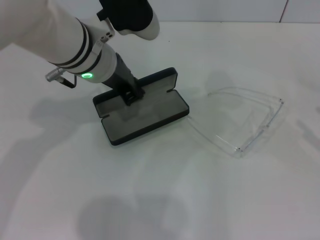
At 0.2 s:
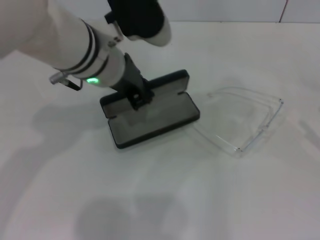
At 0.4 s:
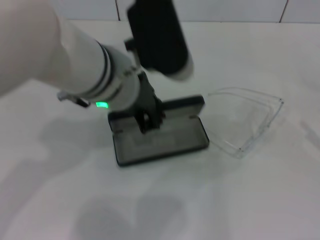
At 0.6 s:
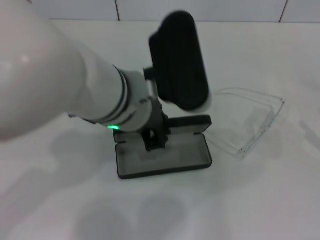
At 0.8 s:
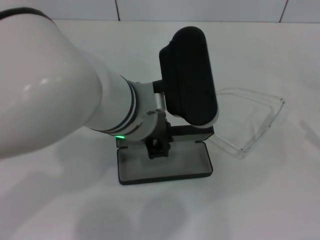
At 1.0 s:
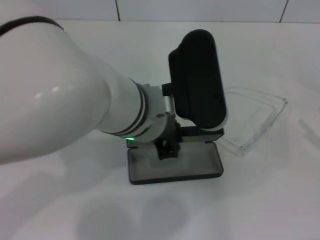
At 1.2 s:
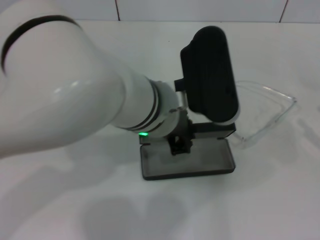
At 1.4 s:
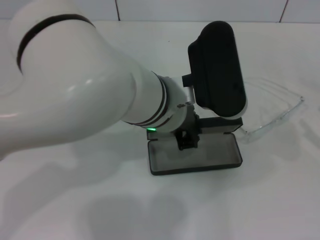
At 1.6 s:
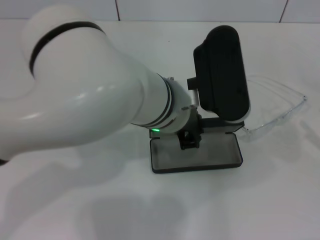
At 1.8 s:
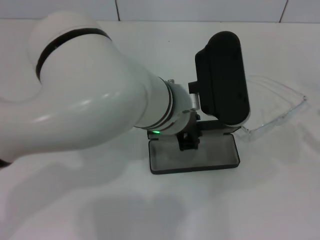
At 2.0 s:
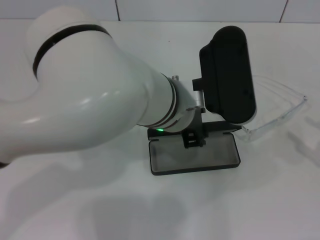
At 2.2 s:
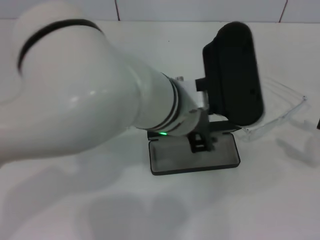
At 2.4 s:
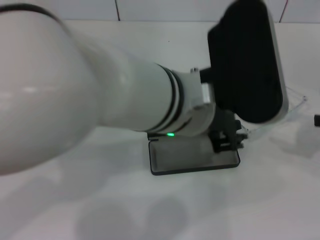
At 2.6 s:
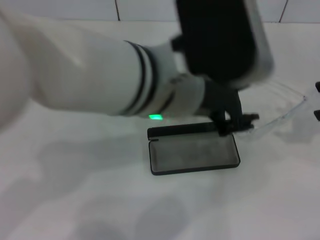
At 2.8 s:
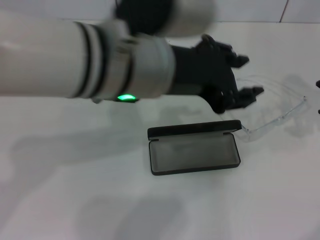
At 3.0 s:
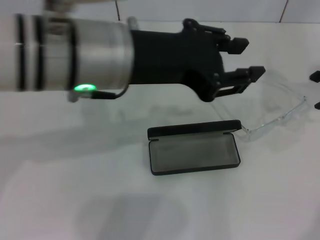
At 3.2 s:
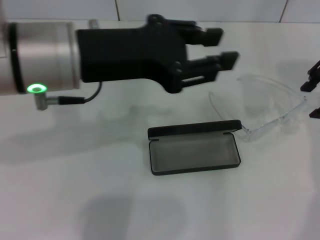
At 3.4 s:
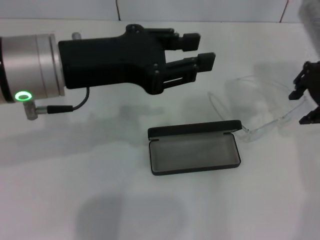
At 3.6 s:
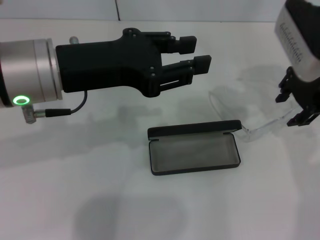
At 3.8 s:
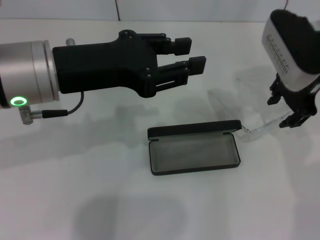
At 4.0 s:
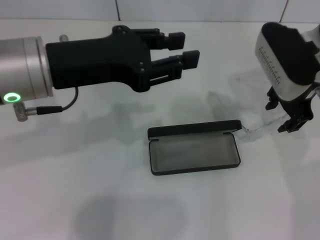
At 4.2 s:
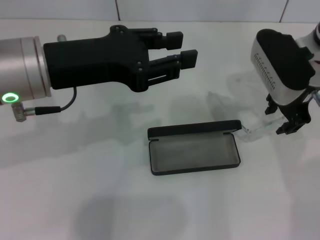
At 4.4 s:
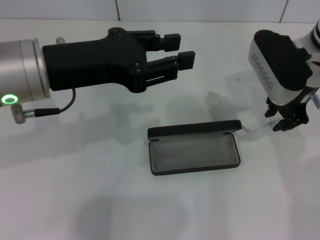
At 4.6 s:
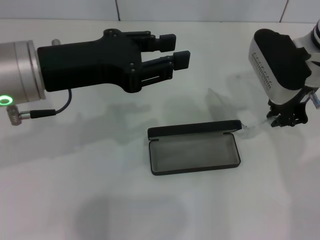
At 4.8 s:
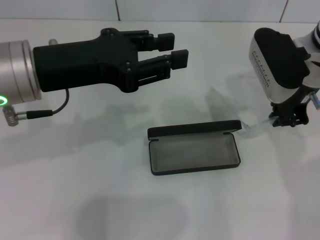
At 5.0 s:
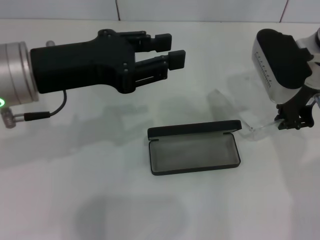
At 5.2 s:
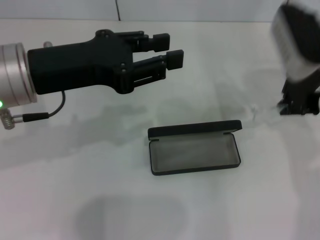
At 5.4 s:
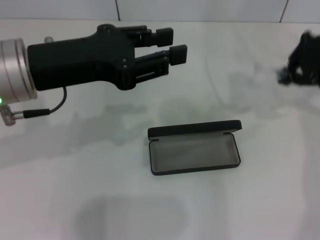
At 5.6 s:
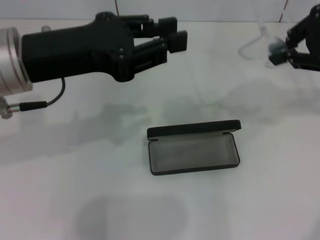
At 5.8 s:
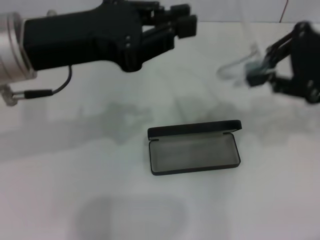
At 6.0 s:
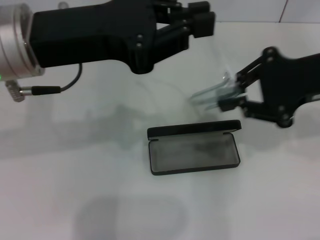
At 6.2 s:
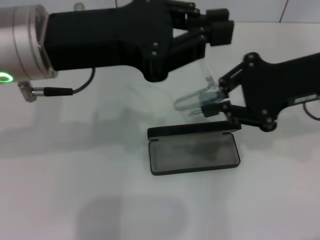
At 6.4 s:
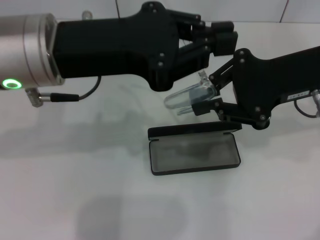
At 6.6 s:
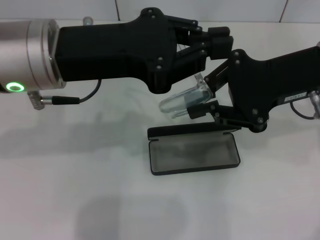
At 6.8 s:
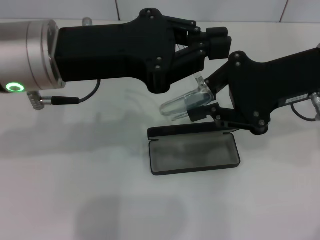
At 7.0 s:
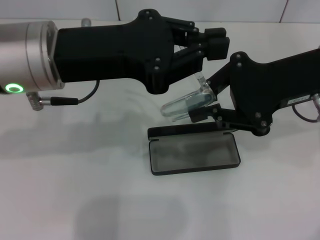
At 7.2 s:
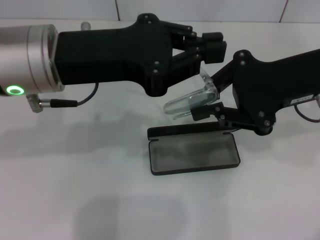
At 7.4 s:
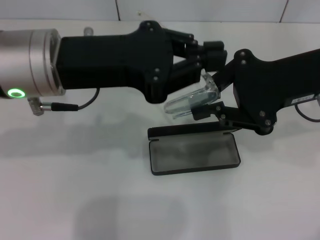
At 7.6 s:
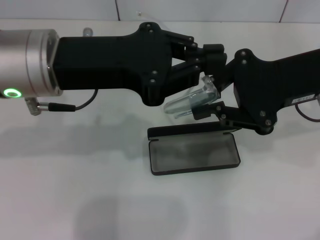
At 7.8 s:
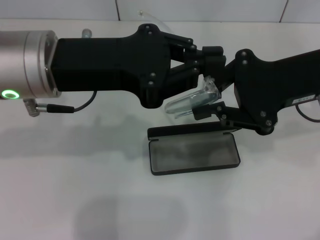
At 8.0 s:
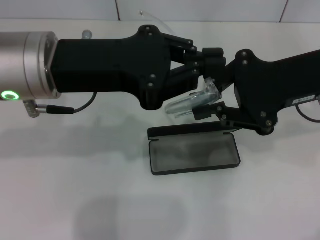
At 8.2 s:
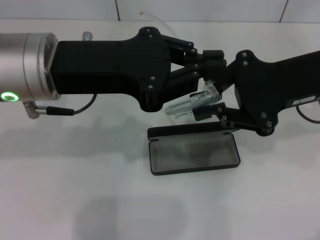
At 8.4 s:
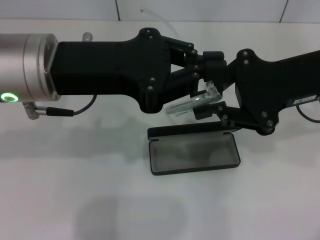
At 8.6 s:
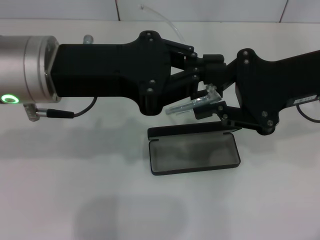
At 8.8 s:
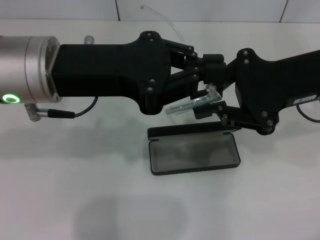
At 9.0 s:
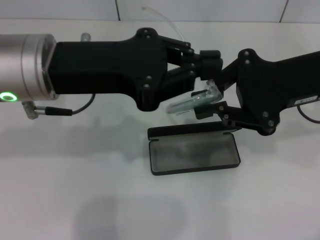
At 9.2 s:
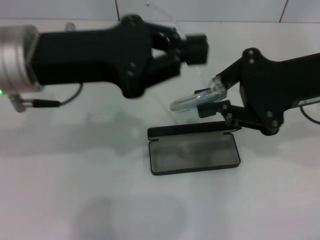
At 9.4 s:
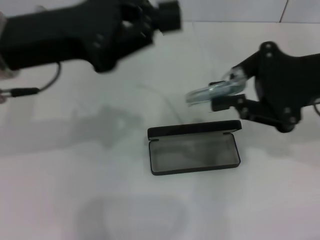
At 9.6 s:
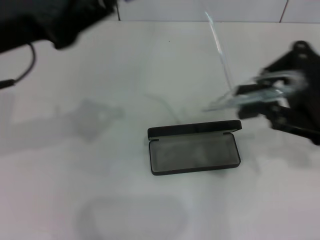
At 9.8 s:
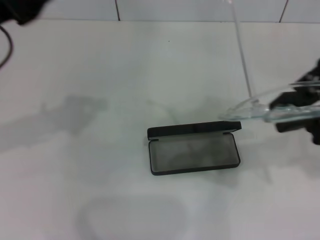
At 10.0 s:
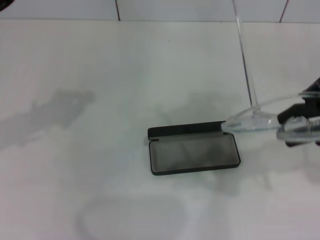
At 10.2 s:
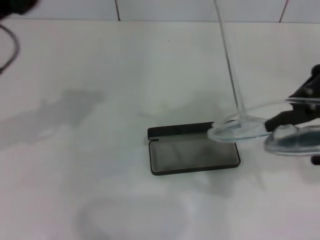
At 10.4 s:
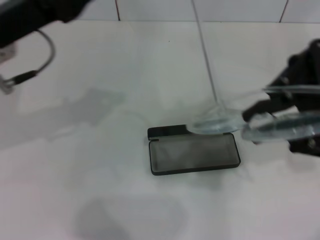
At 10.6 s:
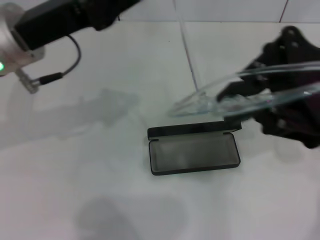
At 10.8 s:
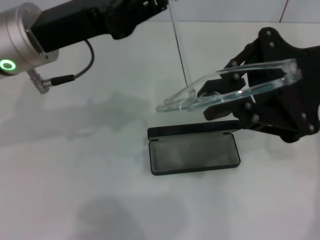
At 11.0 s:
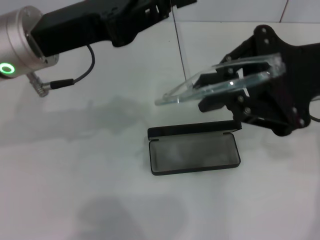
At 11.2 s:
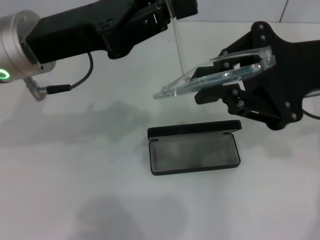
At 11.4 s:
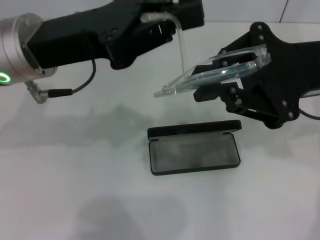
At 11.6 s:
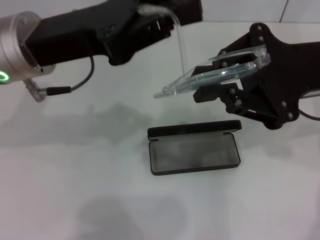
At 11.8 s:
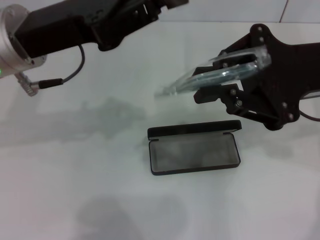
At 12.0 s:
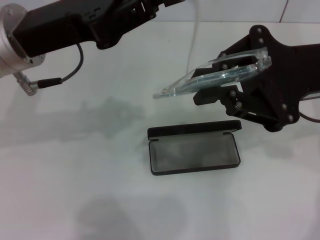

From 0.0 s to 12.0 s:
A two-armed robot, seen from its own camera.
Step, from 0.0 s to 1.8 s: Place the glasses case in the center of the table with your left hand.
Step, from 2.0 s to 4.8 s: Grab the eyeglass frame with your right hand.
From 0.0 s to 1.6 s: The left gripper goes roughly 10 cm to the right and backward.
From 1.6 s to 3.0 s: The left gripper travels upward and to the left by roughly 10 cm; the right gripper goes roughly 25 cm forward, upward and to the left.
From 3.0 s to 4.4 s: The right gripper moves to the left and downward, about 15 cm. The left gripper is displaced to the left by about 10 cm.
From 4.4 s to 6.0 s: The right gripper is displaced backward, to the right and upward by some 10 cm, and closes; the left gripper closes.
From 7.6 s to 9.0 s: Neither gripper changes place.
From 9.0 s to 10.4 s: The left gripper moves to the left, about 5 cm.

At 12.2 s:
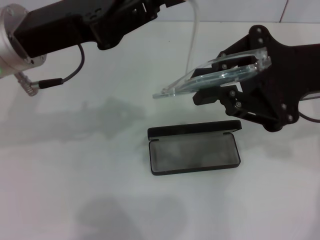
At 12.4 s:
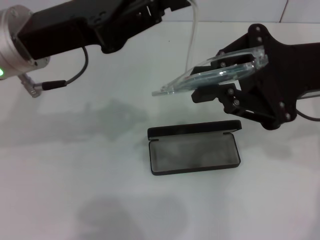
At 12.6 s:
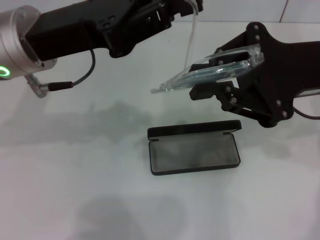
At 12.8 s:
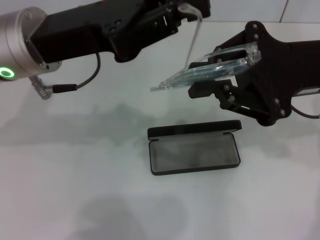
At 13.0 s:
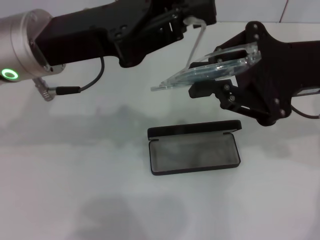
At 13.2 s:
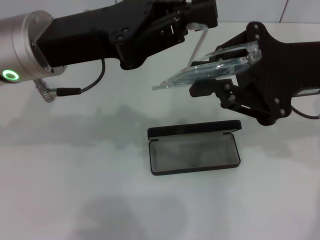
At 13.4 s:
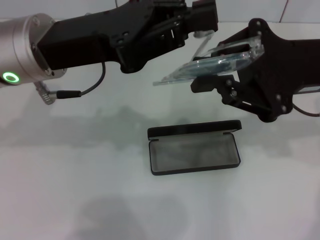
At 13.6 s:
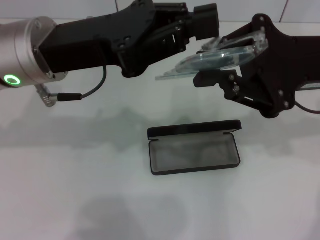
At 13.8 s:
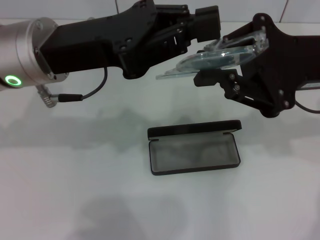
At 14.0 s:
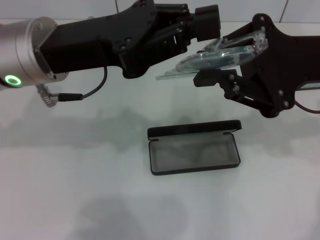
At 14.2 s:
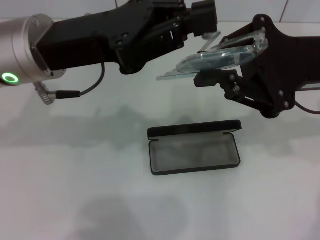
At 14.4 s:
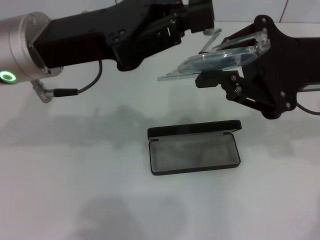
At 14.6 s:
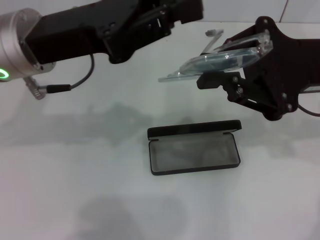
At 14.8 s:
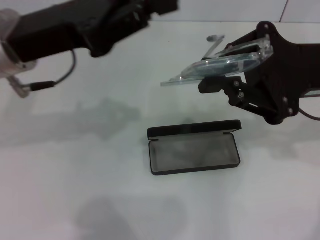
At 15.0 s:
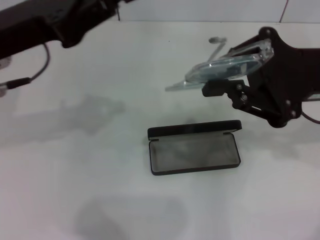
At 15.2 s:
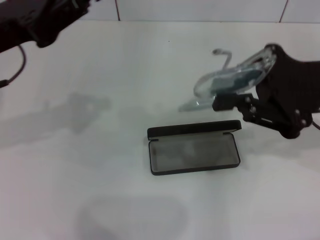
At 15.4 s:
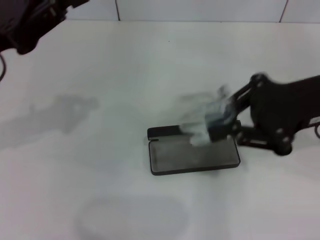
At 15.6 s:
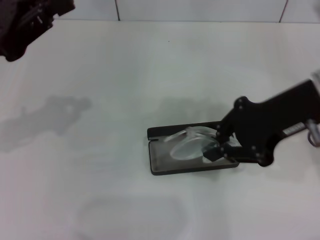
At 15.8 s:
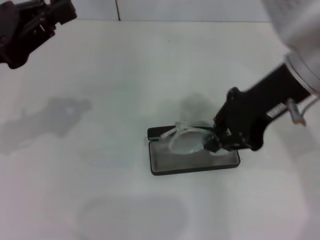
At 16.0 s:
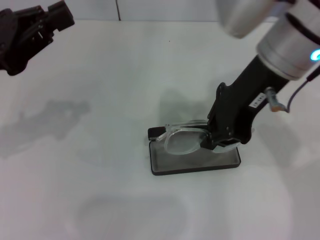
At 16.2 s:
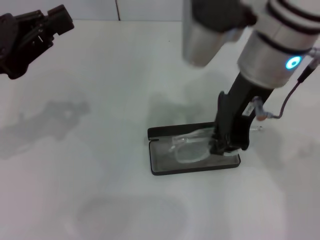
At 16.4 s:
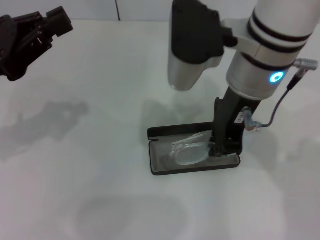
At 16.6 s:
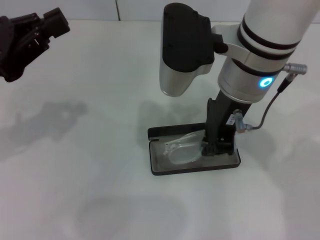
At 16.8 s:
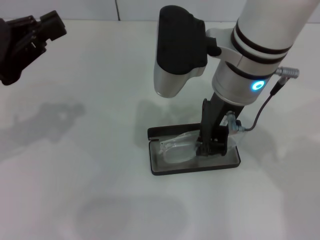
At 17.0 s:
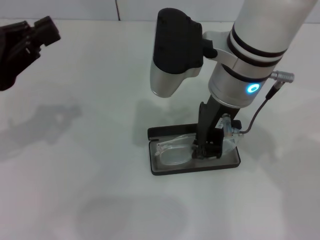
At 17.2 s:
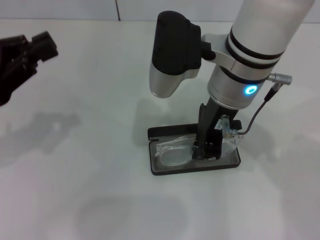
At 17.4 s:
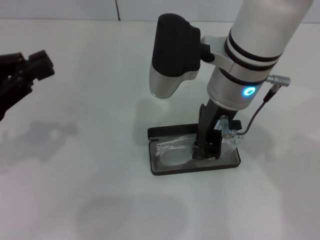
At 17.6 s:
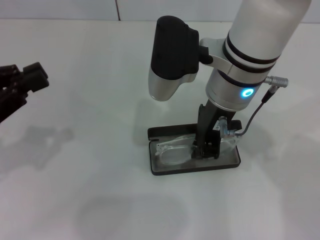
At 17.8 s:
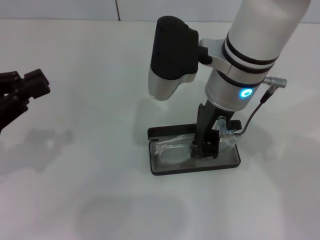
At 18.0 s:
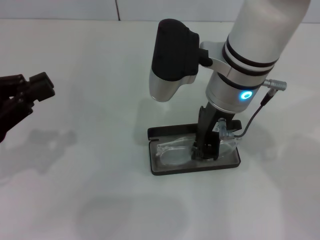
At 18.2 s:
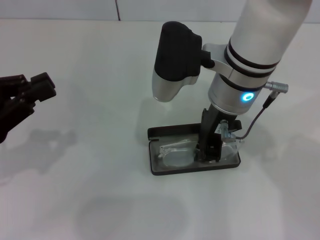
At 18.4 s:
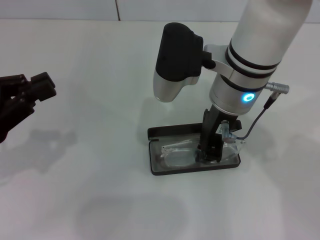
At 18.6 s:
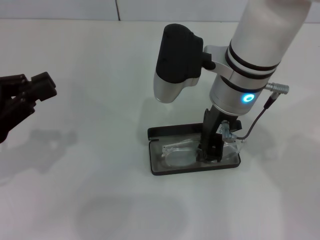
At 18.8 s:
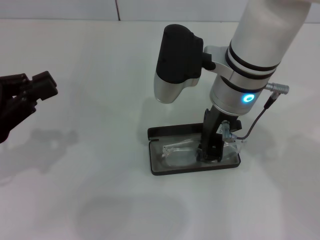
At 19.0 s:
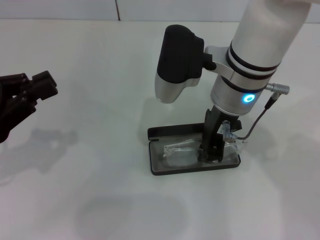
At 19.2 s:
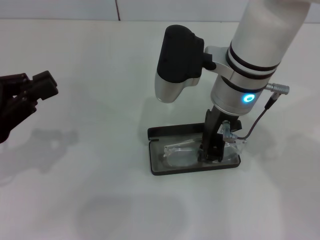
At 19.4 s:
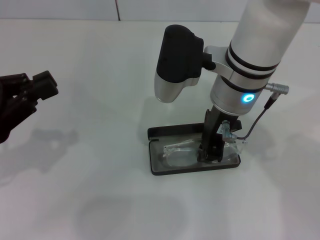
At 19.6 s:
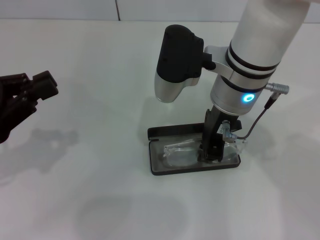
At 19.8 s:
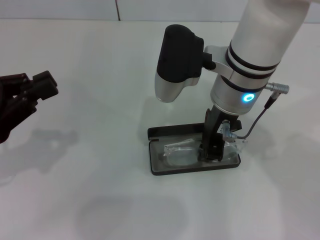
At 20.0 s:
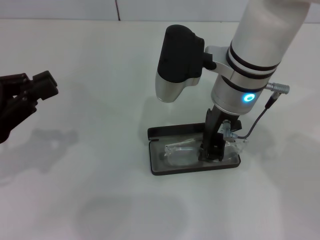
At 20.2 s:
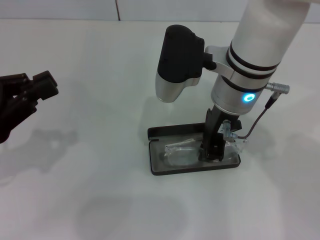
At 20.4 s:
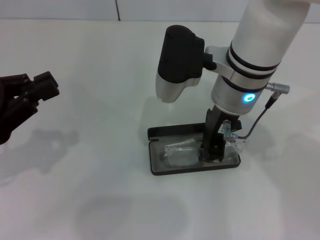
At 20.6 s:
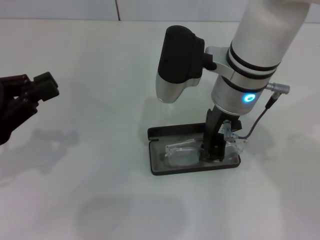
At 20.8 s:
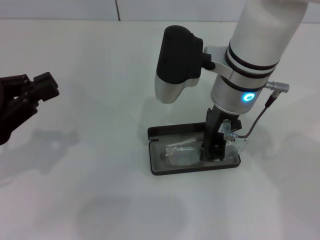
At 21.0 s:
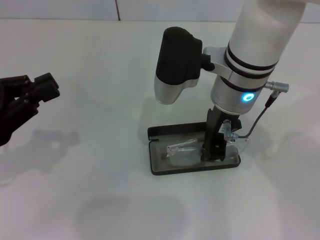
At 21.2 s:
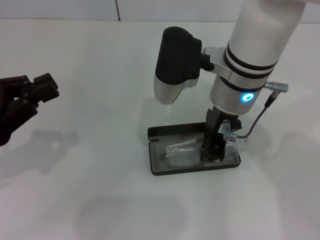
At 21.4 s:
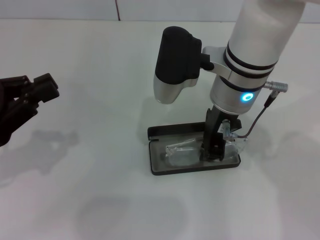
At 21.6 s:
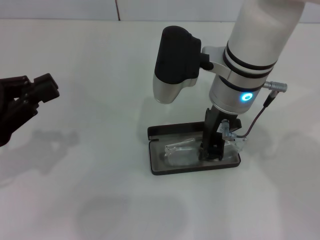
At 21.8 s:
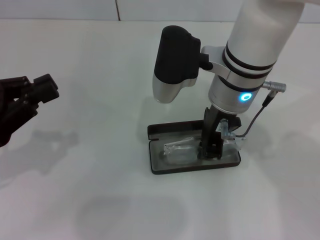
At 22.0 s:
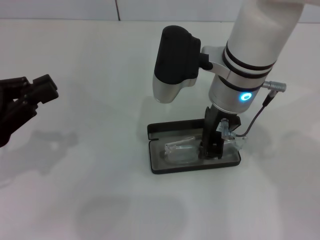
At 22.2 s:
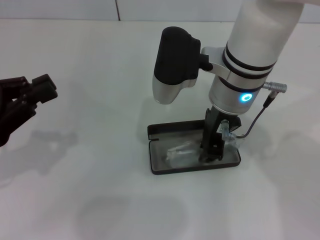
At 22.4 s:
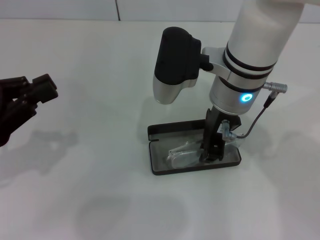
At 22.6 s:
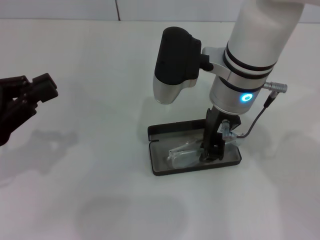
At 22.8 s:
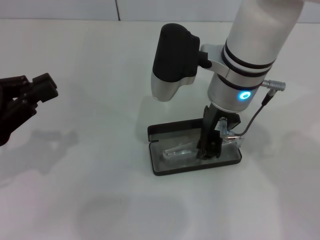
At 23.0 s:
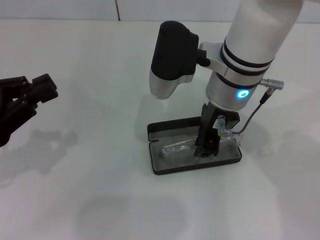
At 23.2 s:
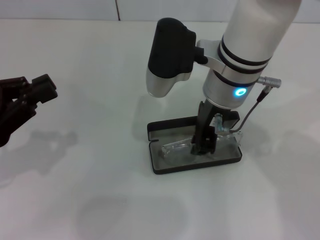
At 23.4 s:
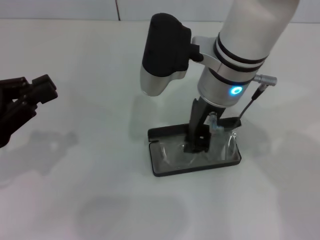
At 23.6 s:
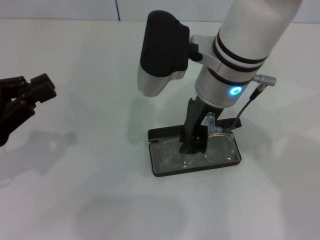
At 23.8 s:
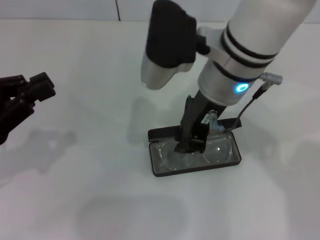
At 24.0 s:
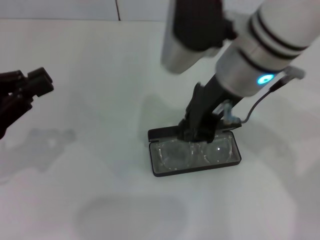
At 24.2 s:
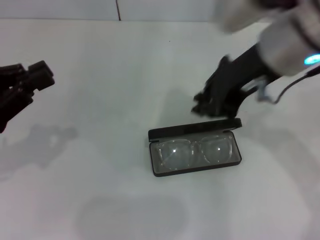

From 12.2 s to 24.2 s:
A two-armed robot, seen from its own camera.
Step, from 12.2 s to 14.2 s: Lift the glasses with your right hand.
Step, from 14.6 s to 23.6 s: Put the glasses into the case with your right hand.
From 13.8 s to 15.2 s: The left gripper is displaced to the left by roughly 10 cm.
From 15.2 s to 16.6 s: The left gripper moves approximately 5 cm, while the right gripper moves to the left, roughly 15 cm.
From 16.6 s to 18.2 s: The left gripper changes place by about 5 cm.
From 18.2 s to 22.6 s: Both grippers stay about where they are.
From 22.6 s to 24.2 s: The right gripper travels upward and to the right by about 10 cm.
